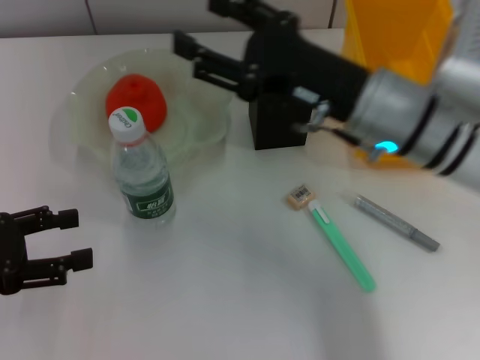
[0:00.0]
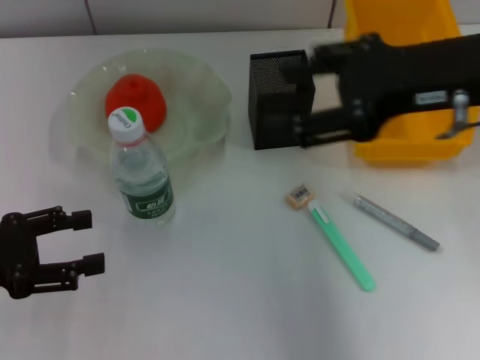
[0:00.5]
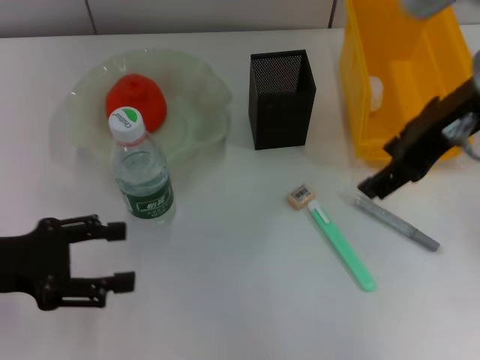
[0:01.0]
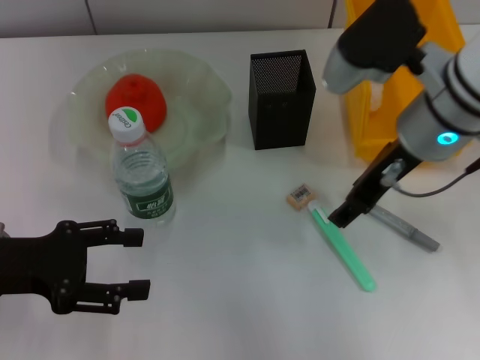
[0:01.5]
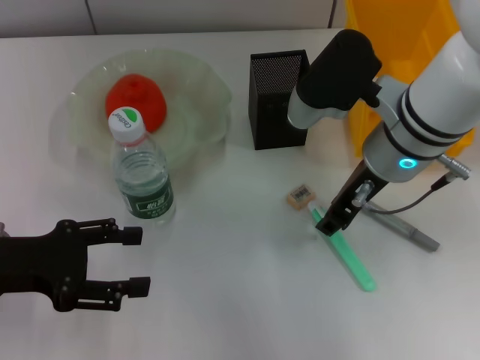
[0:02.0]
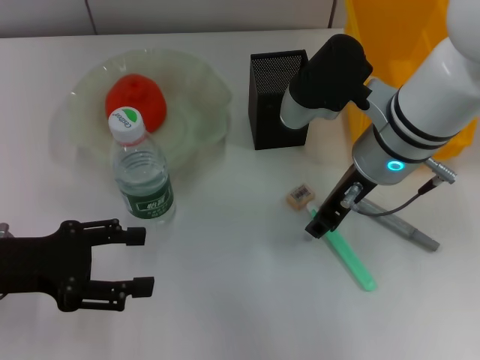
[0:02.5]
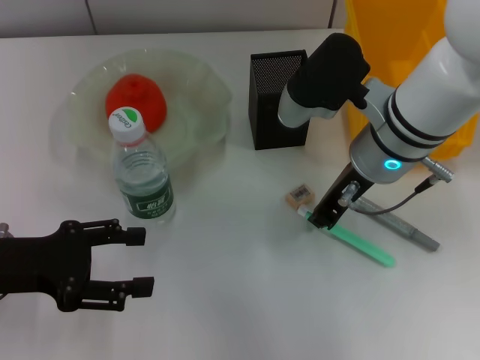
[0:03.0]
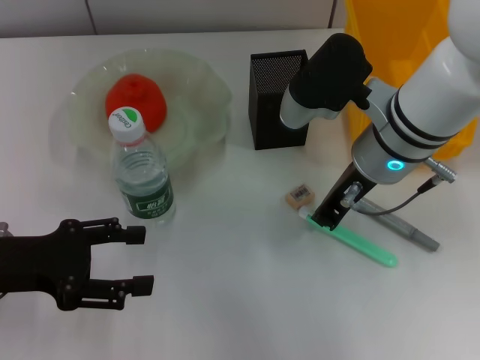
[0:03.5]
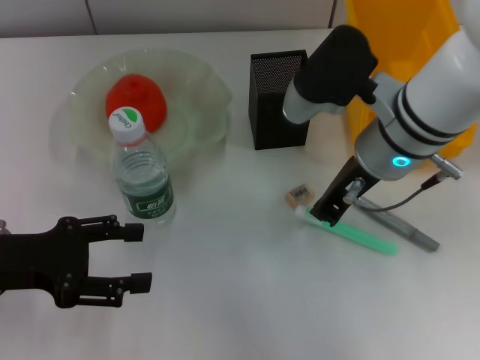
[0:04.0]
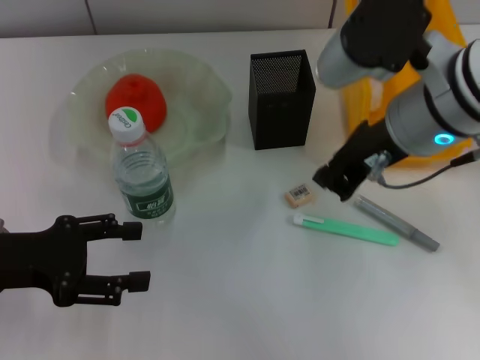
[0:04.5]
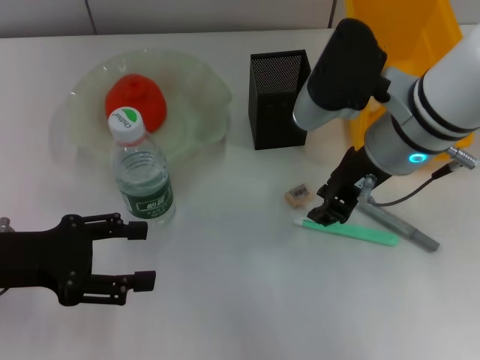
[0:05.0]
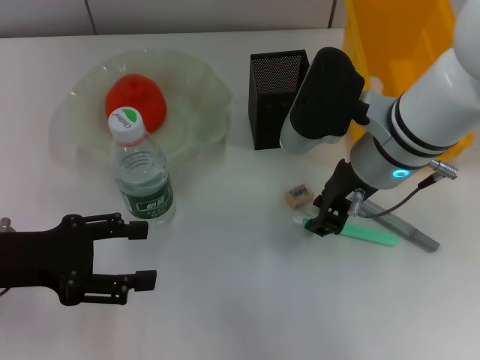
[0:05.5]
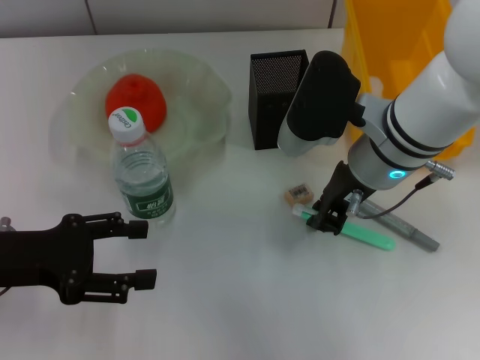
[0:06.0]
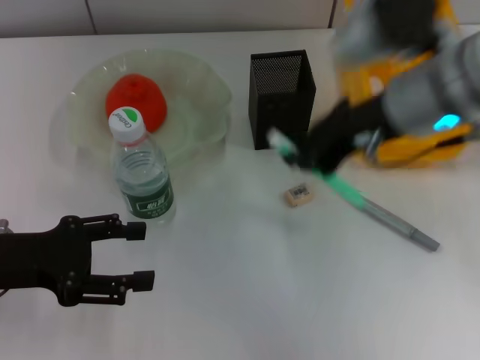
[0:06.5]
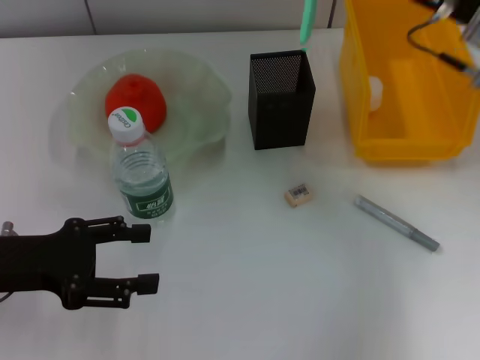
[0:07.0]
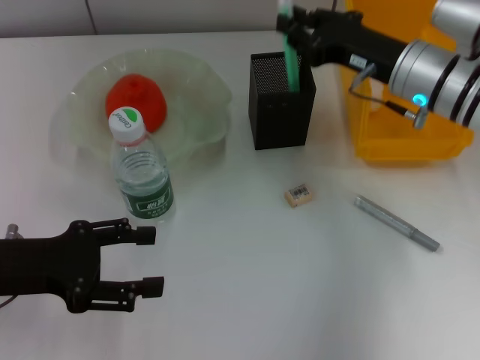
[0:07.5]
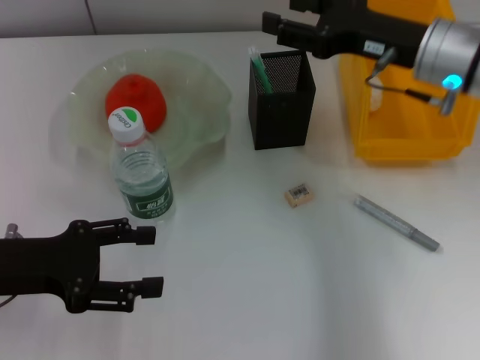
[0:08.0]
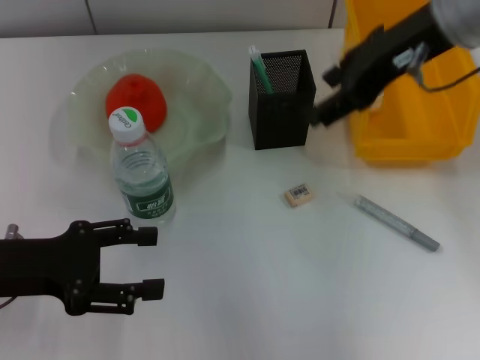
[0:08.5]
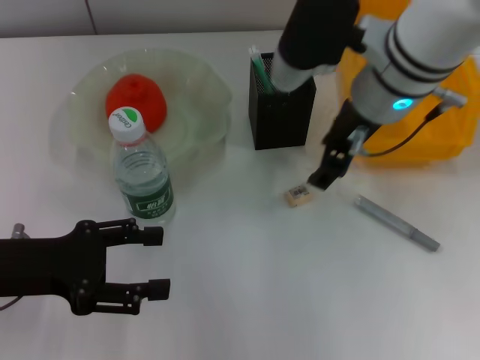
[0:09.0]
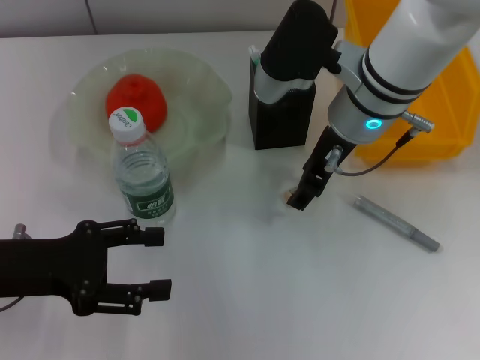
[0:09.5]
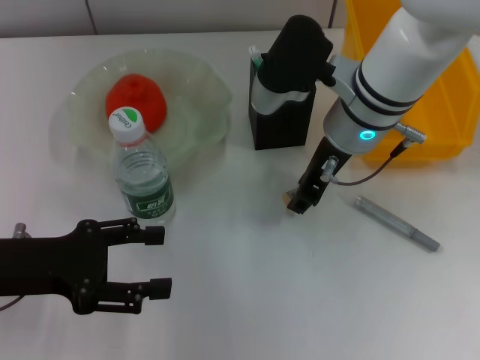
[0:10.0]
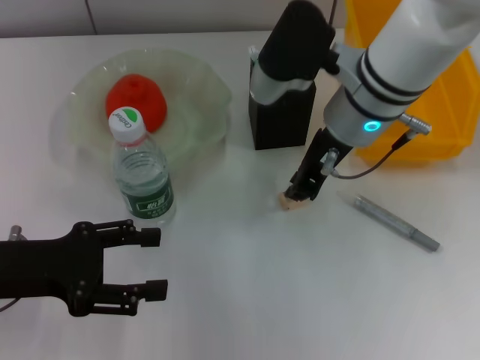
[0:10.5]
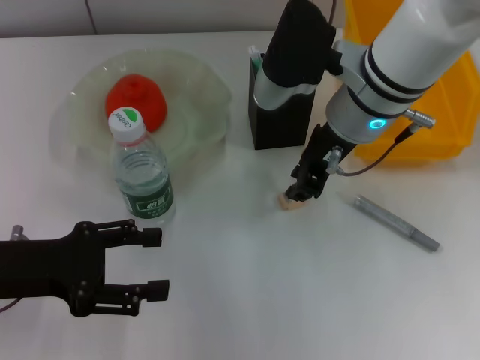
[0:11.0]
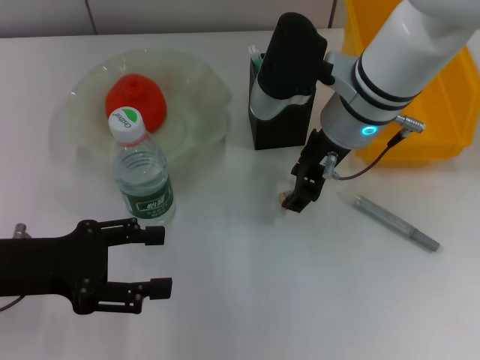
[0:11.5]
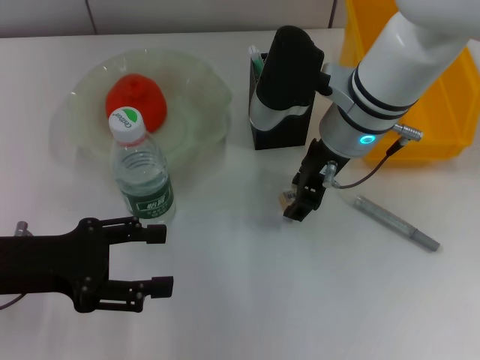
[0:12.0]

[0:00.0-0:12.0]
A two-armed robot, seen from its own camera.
Step, 0:00.0 to 0:05.5: Grab the blue utility knife with the right hand.
Step, 0:06.5 to 0:07.5: Place the blue utility knife into the pen holder with the right hand.
0:00.0 to 0:02.0: The left gripper moves some 5 cm. Meanwhile the right gripper travels upward and back again, approximately 10 cm each way.
0:02.0 to 0:04.0: The right gripper closes.
0:04.0 to 0:06.0: The grippers stay close to where they were, moving slightly.
0:06.0 to 0:08.0: The right gripper travels to the right by some 10 cm.
0:08.0 to 0:10.0: The right gripper travels to the left by approximately 10 cm, and travels upward and back again, approximately 10 cm each way.
0:10.0 to 0:12.0: The right gripper closes, then reopens.

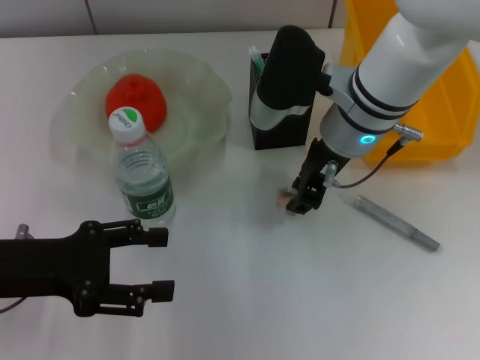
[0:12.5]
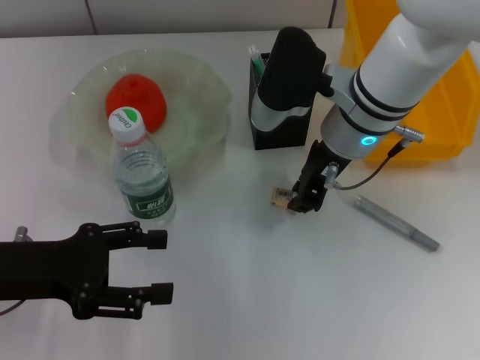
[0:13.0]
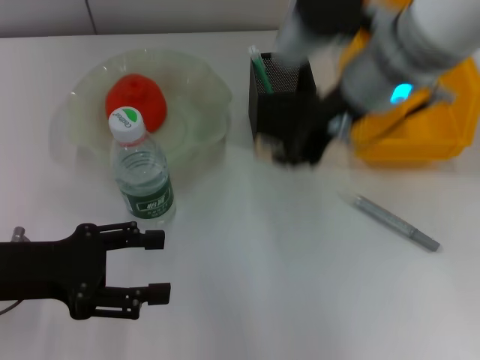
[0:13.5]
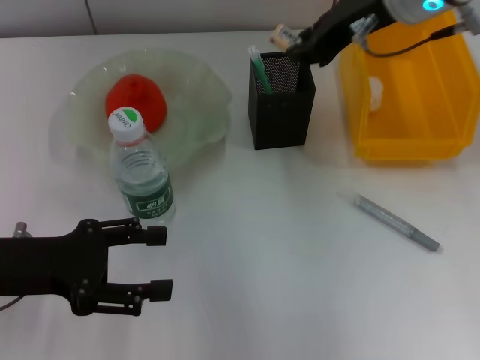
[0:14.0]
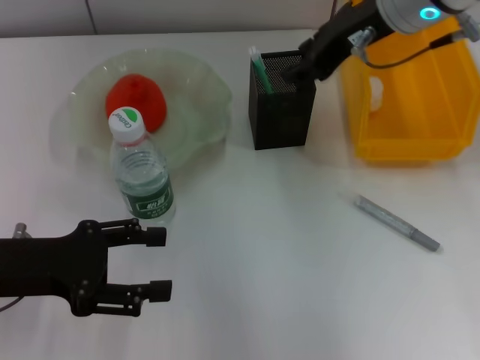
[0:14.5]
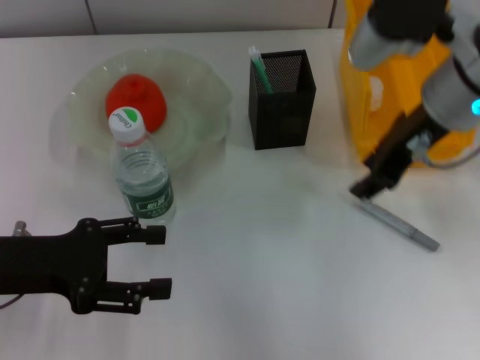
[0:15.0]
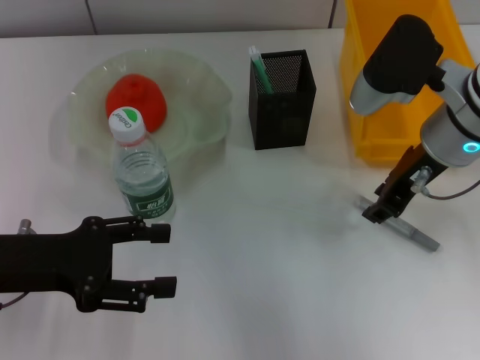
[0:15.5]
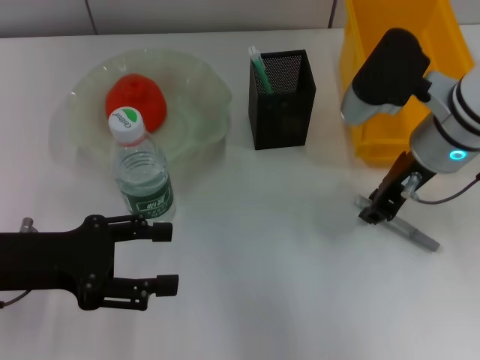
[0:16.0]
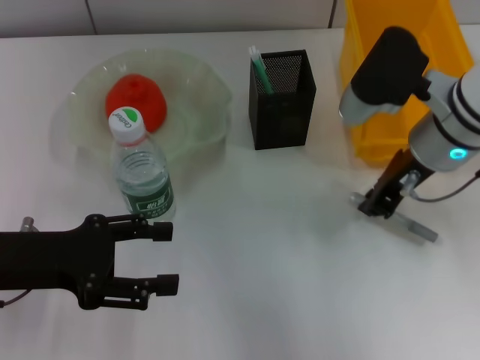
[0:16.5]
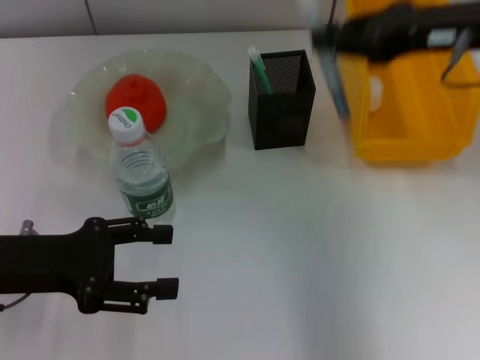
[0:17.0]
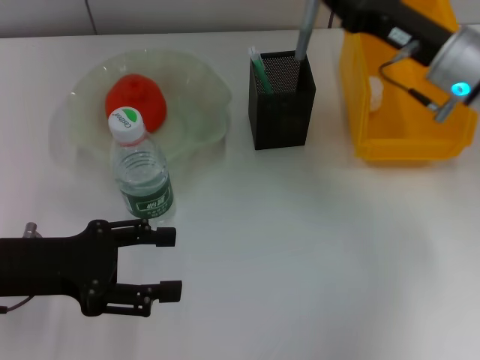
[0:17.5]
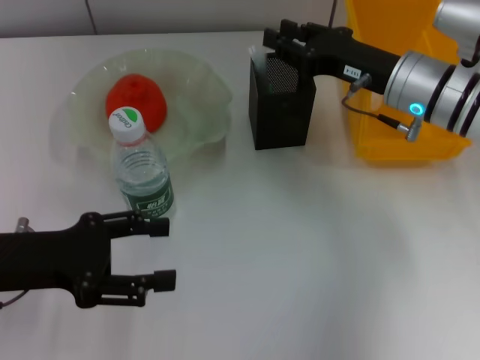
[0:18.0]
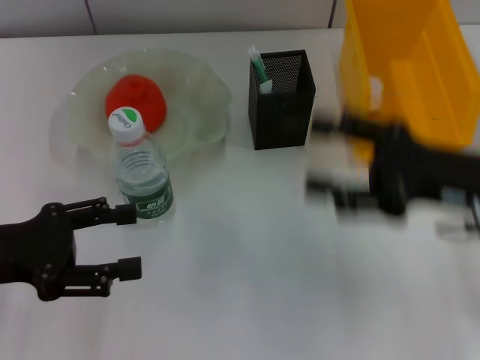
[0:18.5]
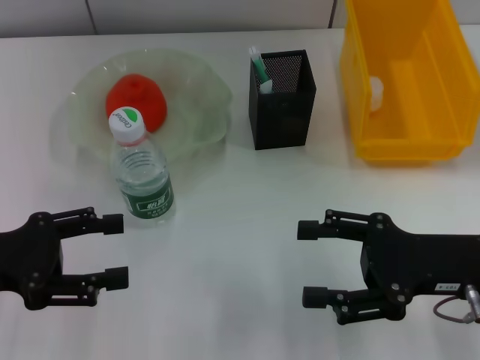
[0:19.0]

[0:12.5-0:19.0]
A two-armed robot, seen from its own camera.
Step, 0:13.5 to 0:14.0: Put the eraser into the pen holder with the right hand.
Step, 0:14.5 to 0:16.0: Grab the gray glue with the right hand.
Step, 0:16.5 to 0:18.0: Place the gray glue into the pen holder with the right hand.
0:12.5 to 0:14.5: The right gripper travels upward by some 10 cm.
0:14.5 to 0:17.0: The right gripper travels to the right by approximately 10 cm, reaches roughly 10 cm downward, then returns, and closes.
0:17.0 to 0:19.0: The right gripper is displaced downward and backward by some 20 cm, and opens up.

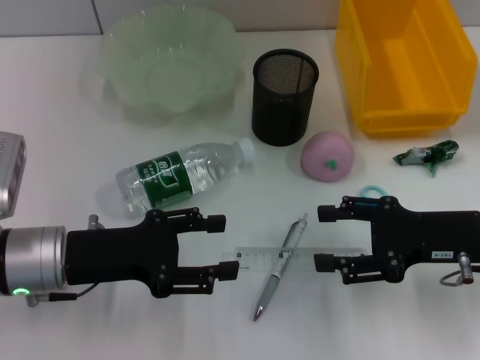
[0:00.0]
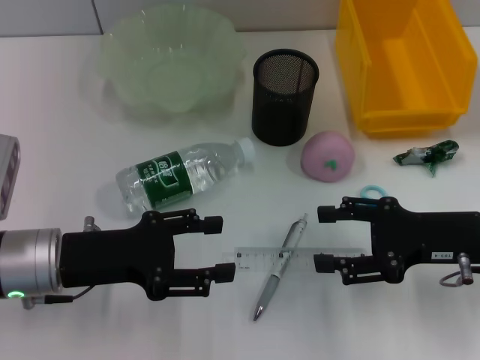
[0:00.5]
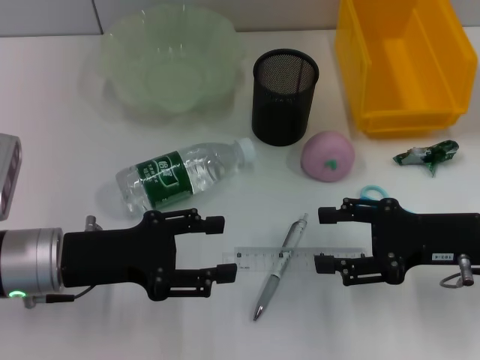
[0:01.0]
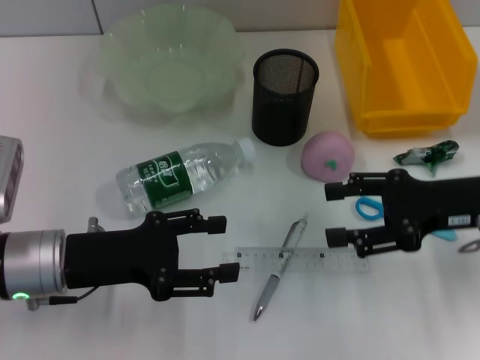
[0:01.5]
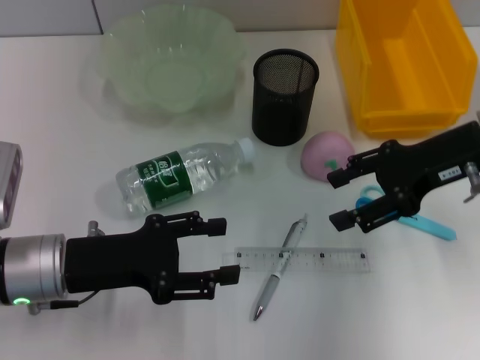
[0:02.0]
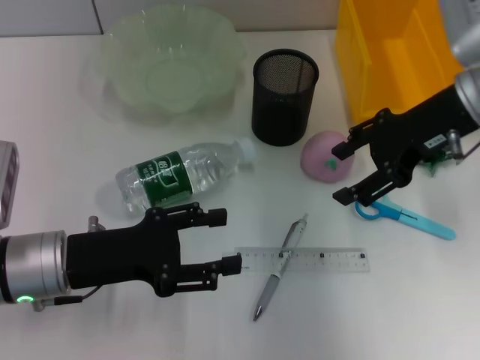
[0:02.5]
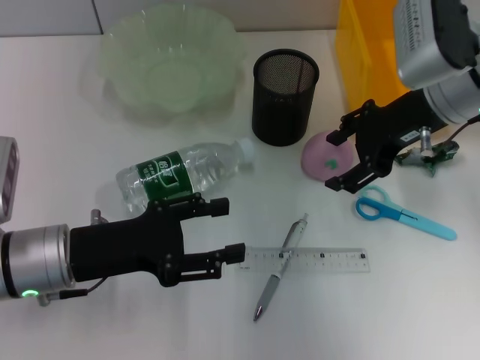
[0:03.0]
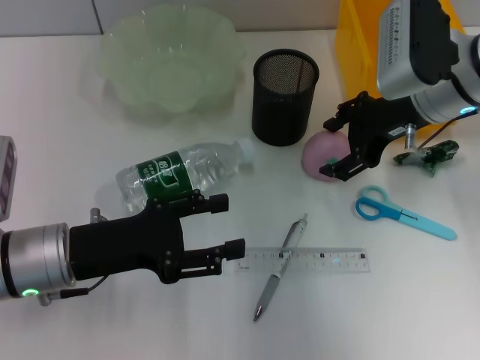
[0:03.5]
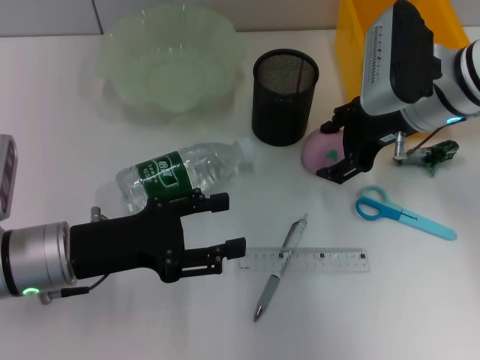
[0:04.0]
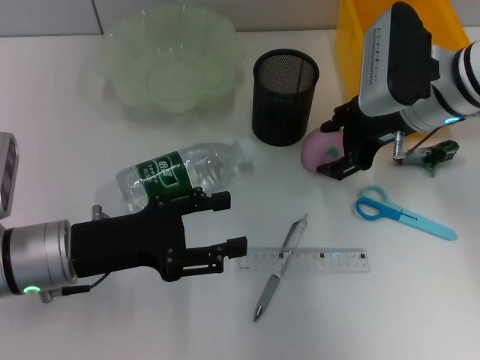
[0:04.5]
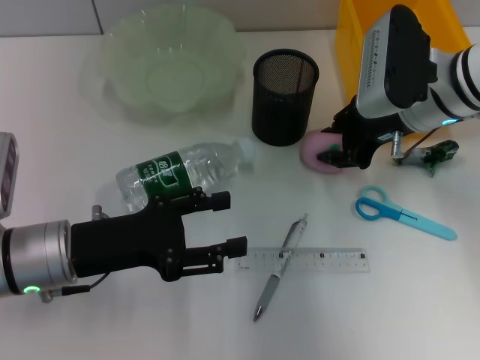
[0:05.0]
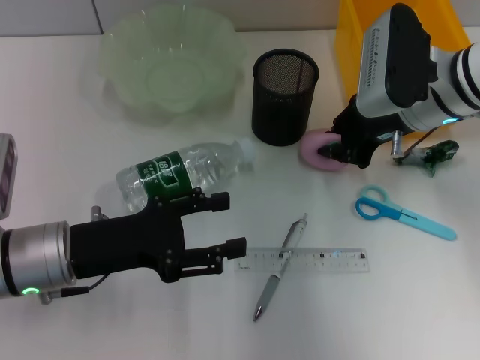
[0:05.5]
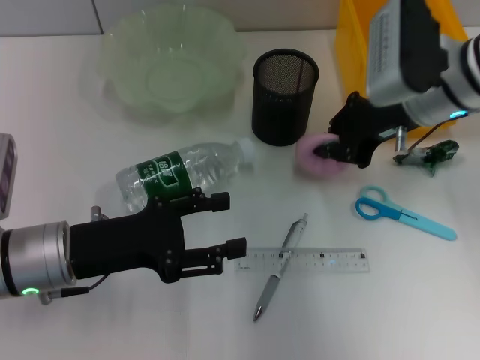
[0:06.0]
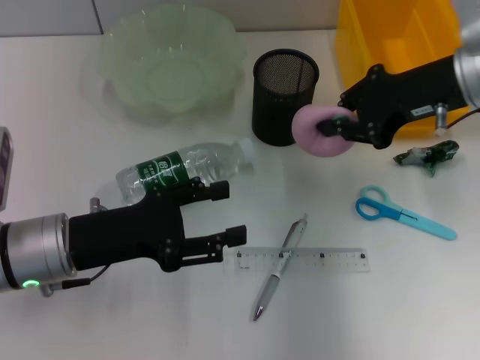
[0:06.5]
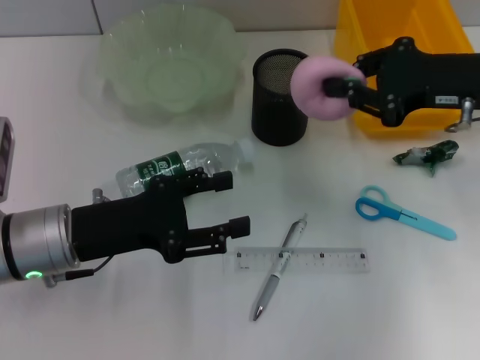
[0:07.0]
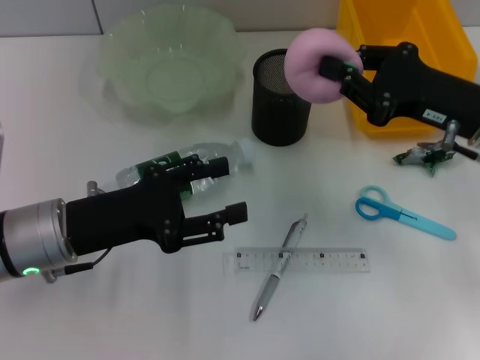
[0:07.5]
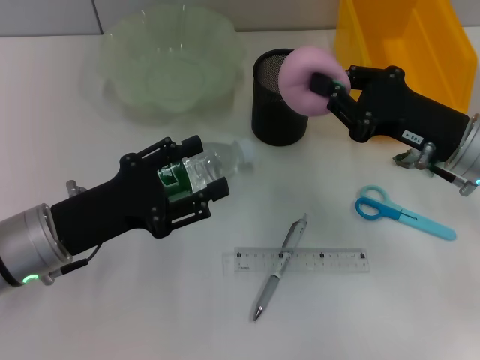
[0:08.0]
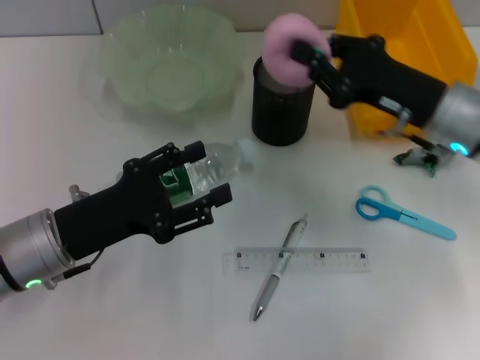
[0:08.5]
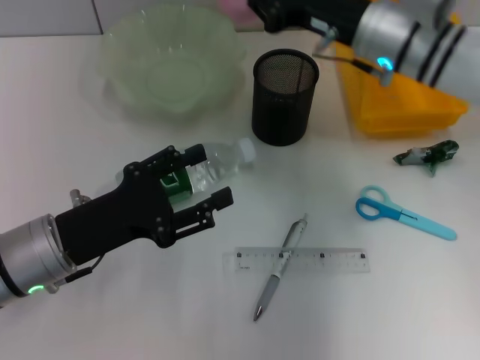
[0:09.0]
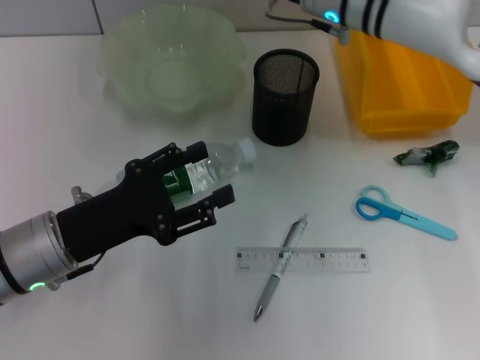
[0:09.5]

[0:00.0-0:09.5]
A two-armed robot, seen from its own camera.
Step, 0:00.0 to 0:05.5: Grab the peach with the right hand.
0:00.0 to 0:02.0: The right gripper shifts approximately 10 cm upward and forward.
0:02.0 to 0:04.0: The right gripper shifts roughly 5 cm to the left.
0:04.0 to 0:05.5: The right gripper closes its fingers.
0:05.5 to 0:07.5: The right gripper heads backward and to the right, covering roughly 10 cm.
0:07.5 to 0:09.5: The right gripper is displaced to the left and forward by roughly 20 cm.
